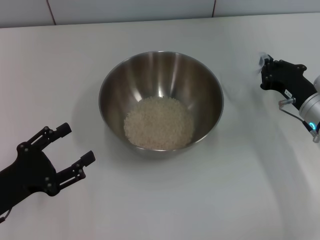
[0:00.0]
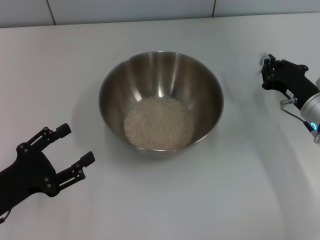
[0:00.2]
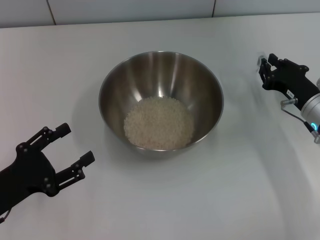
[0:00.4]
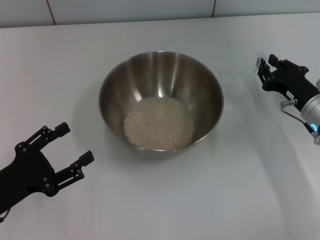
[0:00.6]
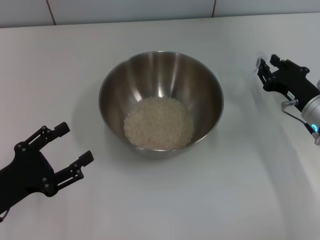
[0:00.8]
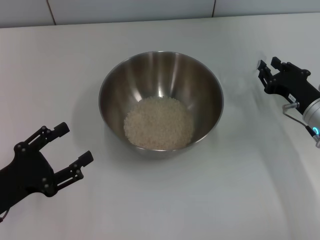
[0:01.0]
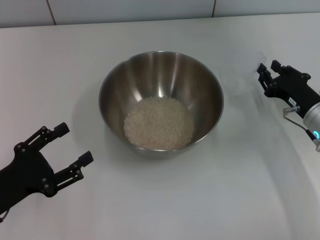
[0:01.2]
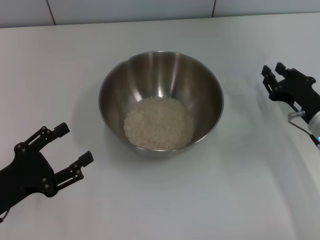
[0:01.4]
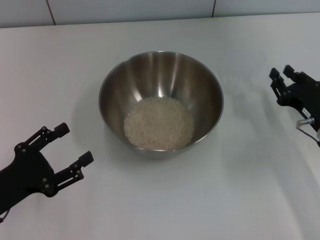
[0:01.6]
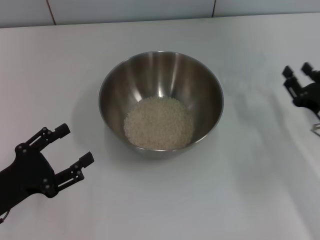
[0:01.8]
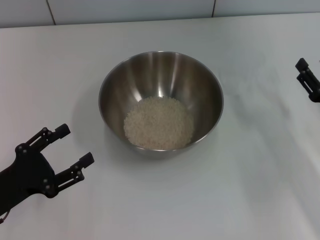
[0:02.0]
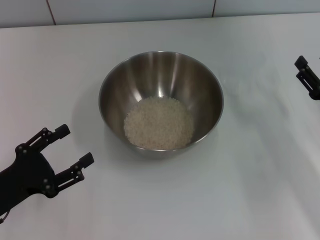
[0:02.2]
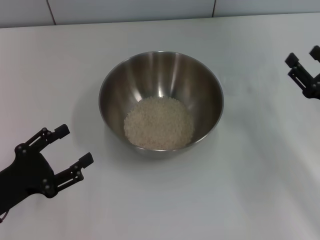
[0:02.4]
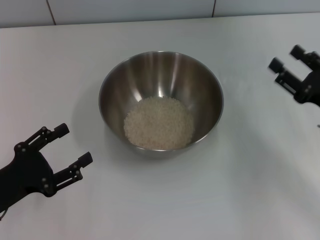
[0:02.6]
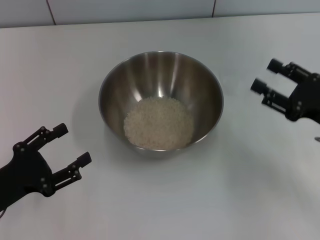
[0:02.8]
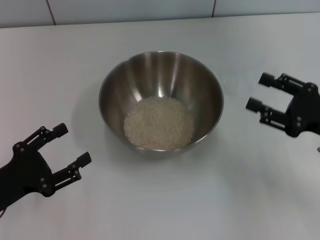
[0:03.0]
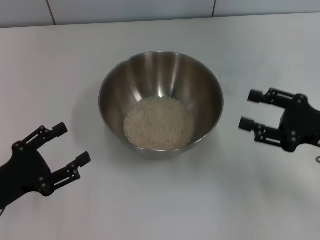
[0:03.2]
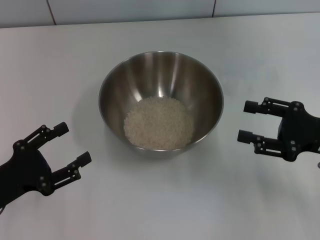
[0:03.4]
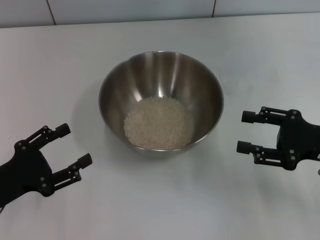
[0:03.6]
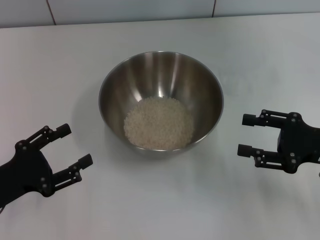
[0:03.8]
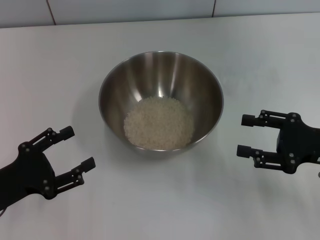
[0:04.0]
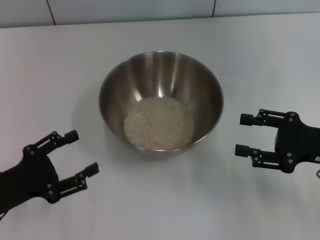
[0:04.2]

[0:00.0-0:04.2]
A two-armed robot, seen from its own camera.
Task of the whole recording: Place the bowl in the middle of the table with one hand and pour the rice from the grain cup into it with the other hand.
0:00.0 to 0:01.4: The right gripper opens.
0:01.4 to 0:02.8: The right gripper heads upward, covering approximately 5 cm, and opens up.

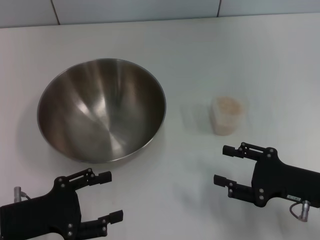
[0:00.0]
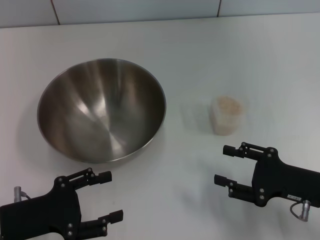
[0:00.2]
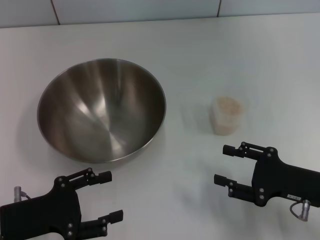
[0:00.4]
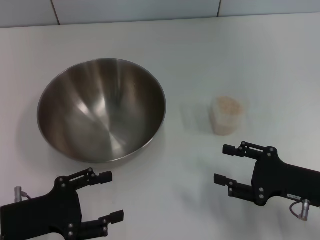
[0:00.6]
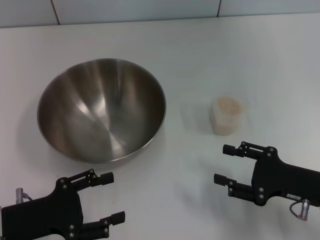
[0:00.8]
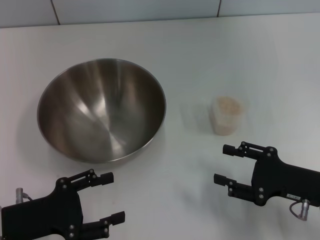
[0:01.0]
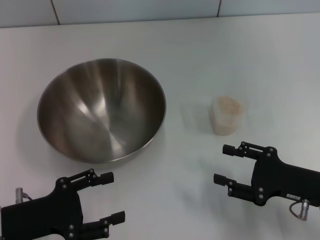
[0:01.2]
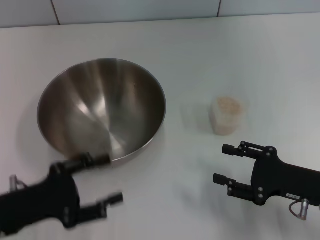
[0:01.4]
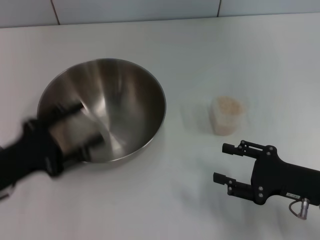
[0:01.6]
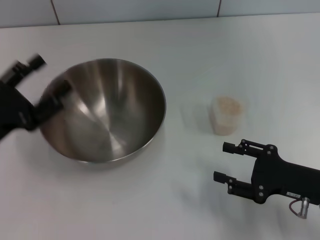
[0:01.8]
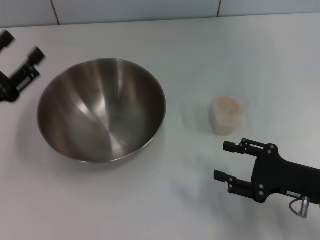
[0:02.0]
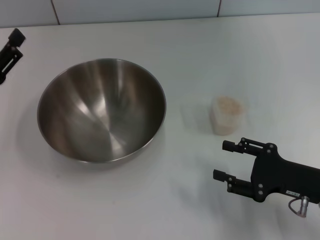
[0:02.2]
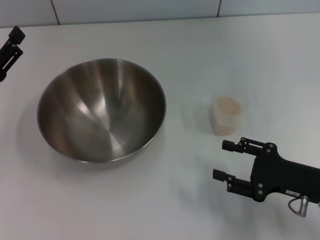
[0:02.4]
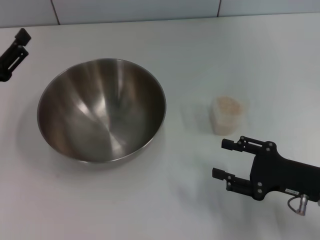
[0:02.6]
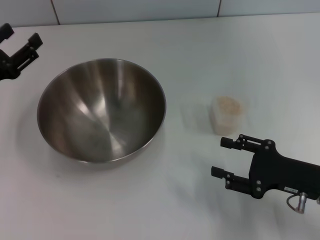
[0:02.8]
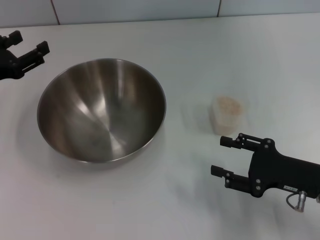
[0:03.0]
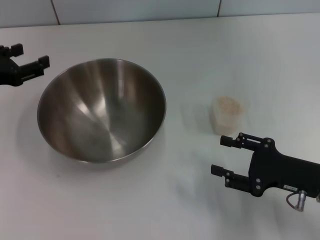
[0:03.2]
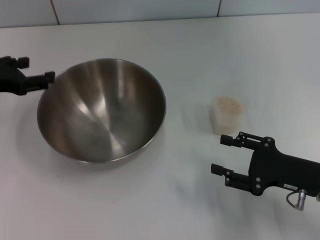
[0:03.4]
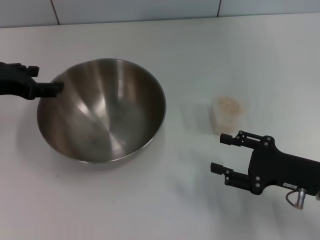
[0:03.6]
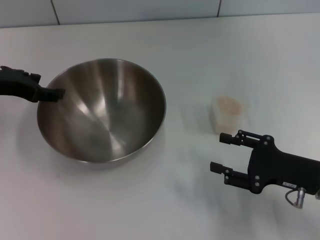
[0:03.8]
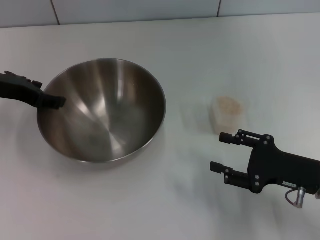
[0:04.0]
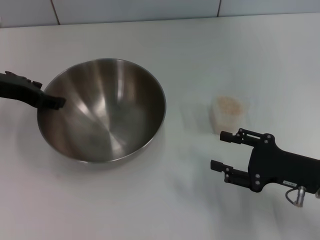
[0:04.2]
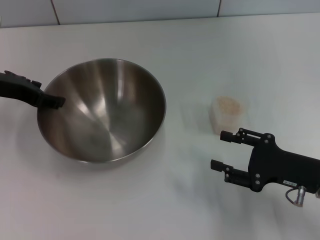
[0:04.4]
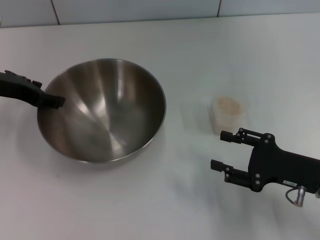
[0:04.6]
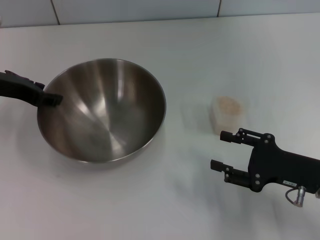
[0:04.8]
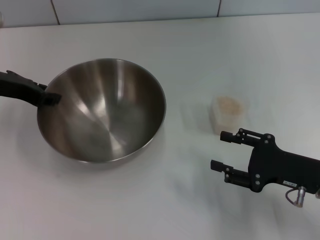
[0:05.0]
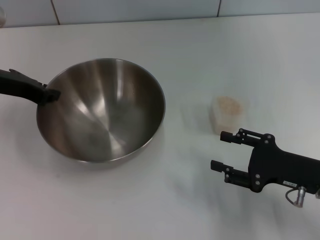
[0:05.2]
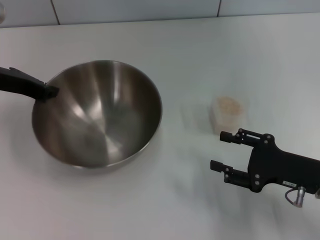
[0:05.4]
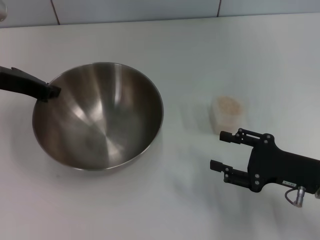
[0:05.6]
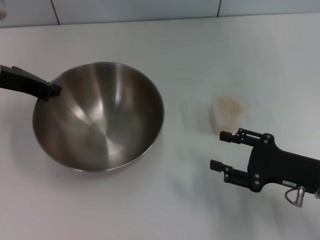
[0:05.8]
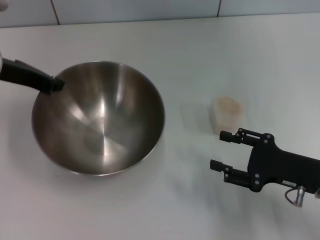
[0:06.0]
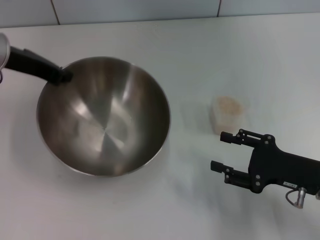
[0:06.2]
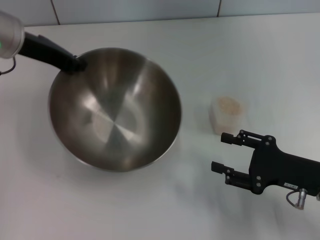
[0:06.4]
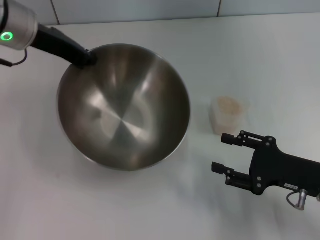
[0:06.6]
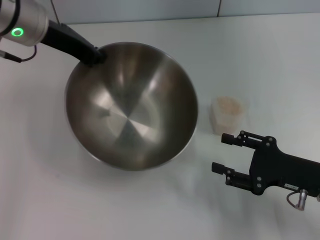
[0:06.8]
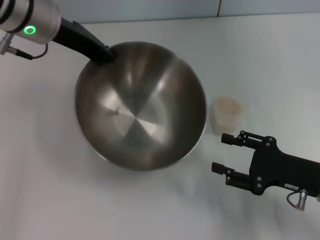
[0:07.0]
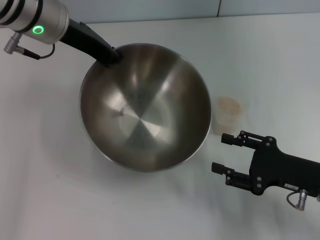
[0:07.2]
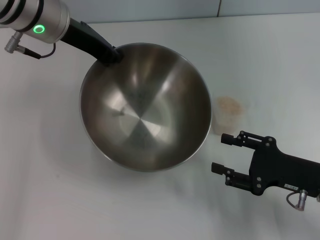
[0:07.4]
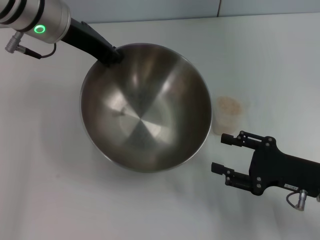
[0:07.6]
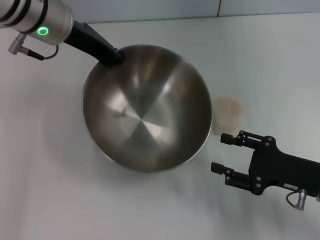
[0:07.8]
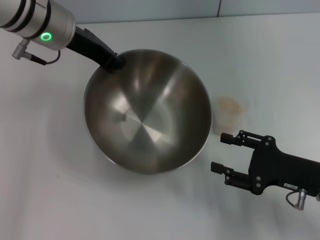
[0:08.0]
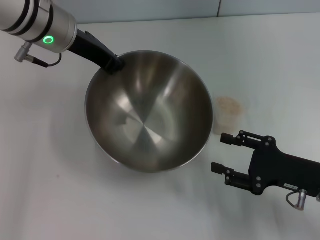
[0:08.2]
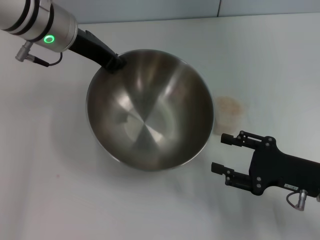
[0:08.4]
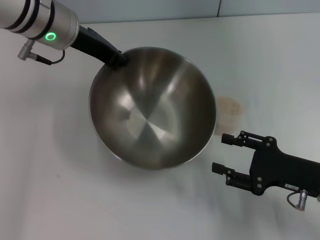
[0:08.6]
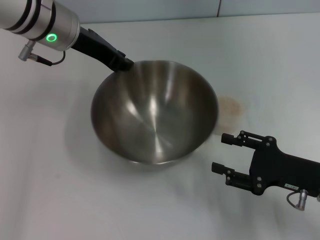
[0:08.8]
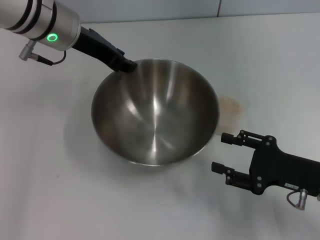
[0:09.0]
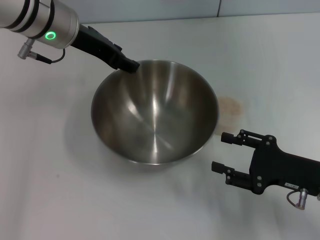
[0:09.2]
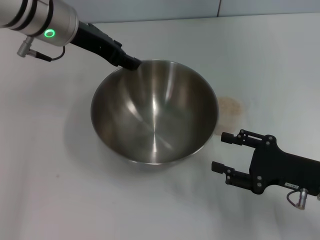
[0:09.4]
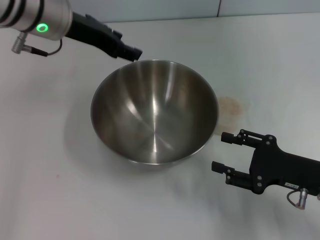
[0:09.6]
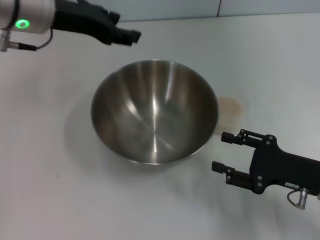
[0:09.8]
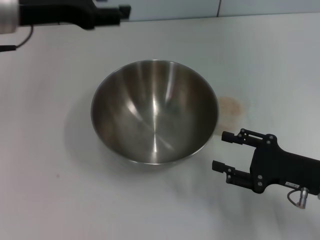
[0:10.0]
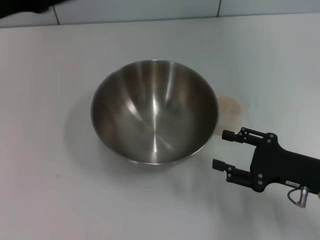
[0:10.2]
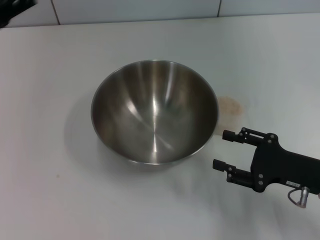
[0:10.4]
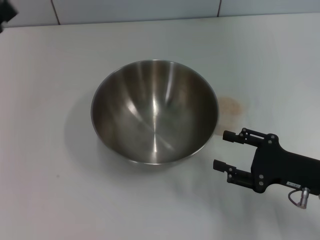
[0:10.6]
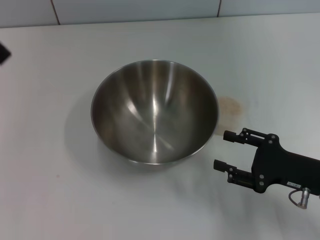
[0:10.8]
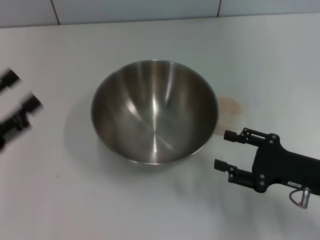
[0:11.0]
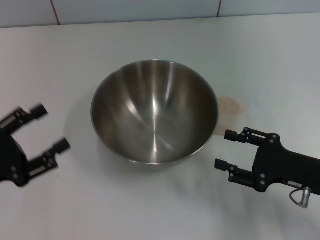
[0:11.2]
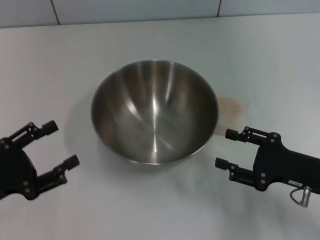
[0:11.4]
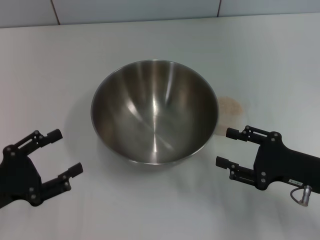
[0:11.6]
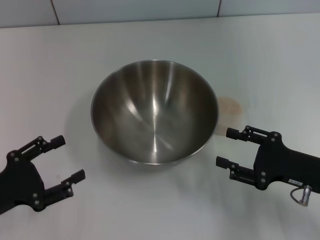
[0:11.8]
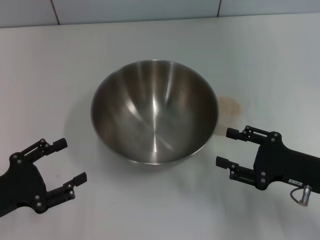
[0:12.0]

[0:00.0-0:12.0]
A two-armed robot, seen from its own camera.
Task of the whole recording: Place the bowl in the middle of the table with one hand and pour the rice from the grain cup into it with the other hand.
Step, 0:00.0 to 0:06.6: Pick up the bowl with the left gripper.
Step, 0:06.8 to 0:09.8: Place the bowl in the center of view with the left gripper.
0:01.6 to 0:03.0: The left gripper heads forward, covering about 10 cm.
0:03.0 to 0:04.4: The left gripper changes place by about 10 cm.
0:04.4 to 0:06.0: The left gripper closes up.
0:06.0 to 0:07.6: The left gripper travels to the right by approximately 10 cm.
0:07.6 to 0:09.0: There are only small adjustments of the grippers.
0:09.0 to 0:10.4: The left gripper heads to the left and backward, covering about 20 cm, and opens.
0:10.4 to 0:12.0: The left gripper travels downward and backward by roughly 20 cm.

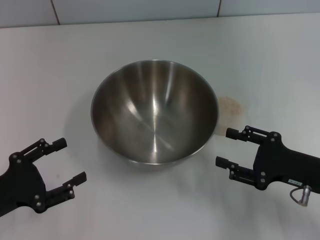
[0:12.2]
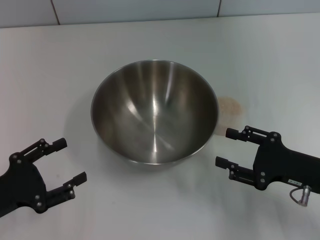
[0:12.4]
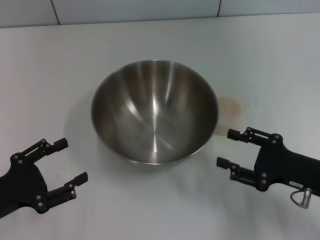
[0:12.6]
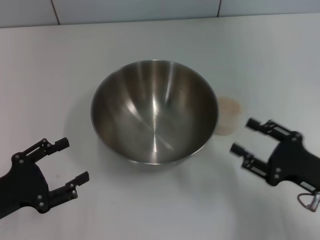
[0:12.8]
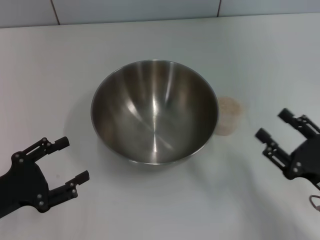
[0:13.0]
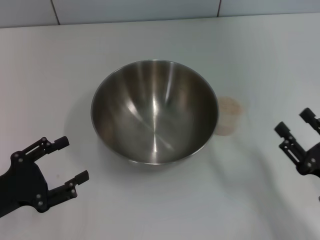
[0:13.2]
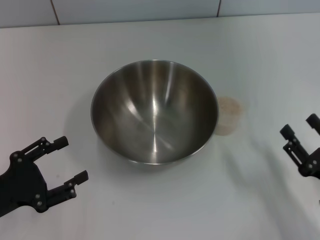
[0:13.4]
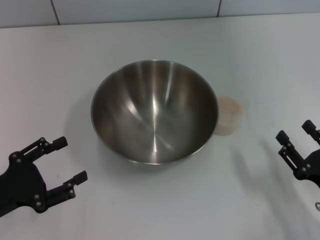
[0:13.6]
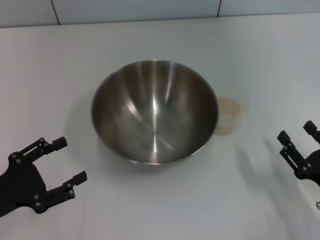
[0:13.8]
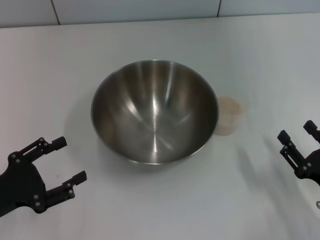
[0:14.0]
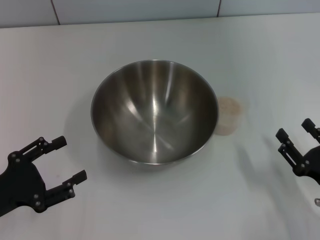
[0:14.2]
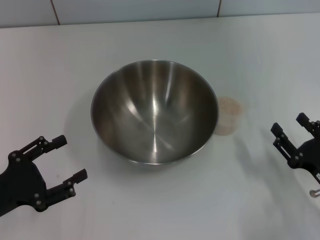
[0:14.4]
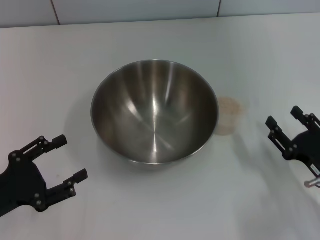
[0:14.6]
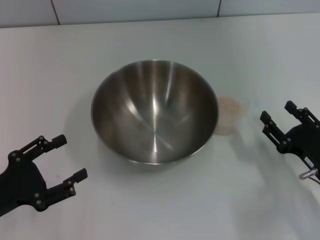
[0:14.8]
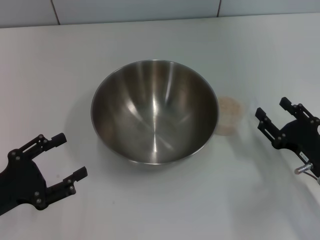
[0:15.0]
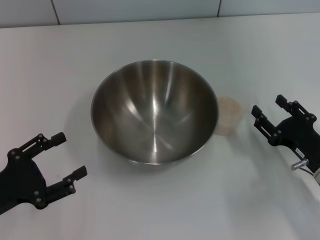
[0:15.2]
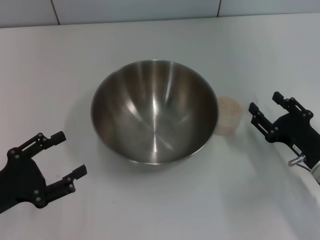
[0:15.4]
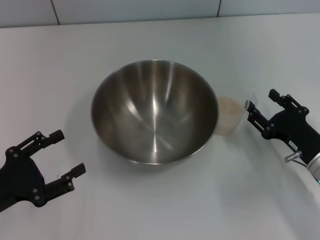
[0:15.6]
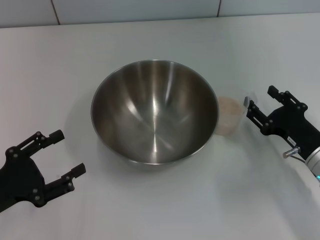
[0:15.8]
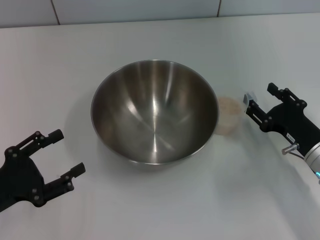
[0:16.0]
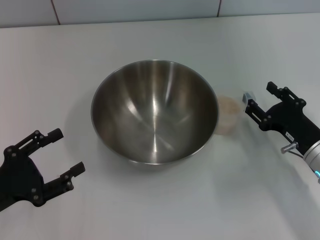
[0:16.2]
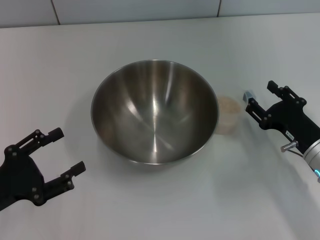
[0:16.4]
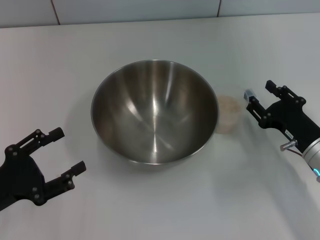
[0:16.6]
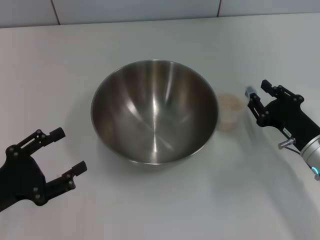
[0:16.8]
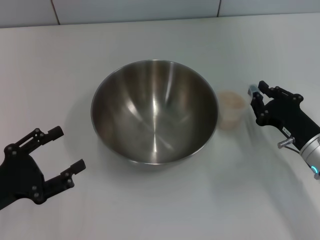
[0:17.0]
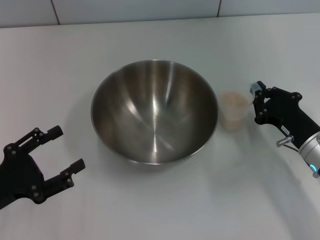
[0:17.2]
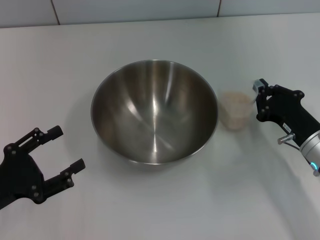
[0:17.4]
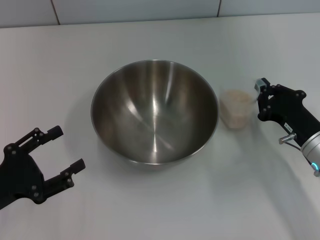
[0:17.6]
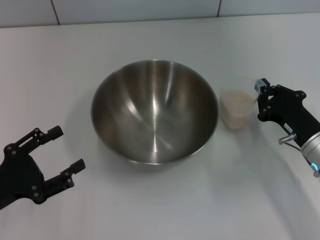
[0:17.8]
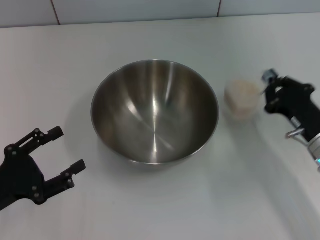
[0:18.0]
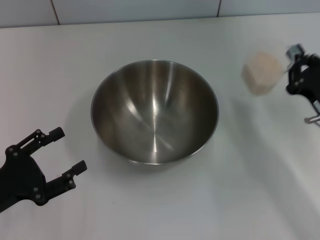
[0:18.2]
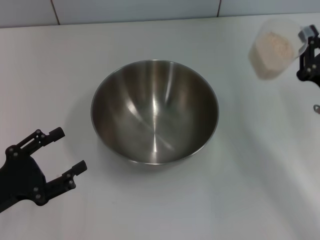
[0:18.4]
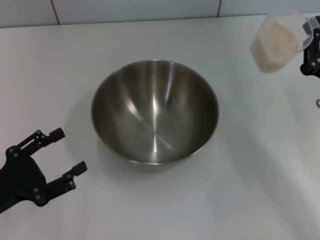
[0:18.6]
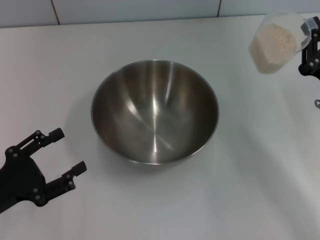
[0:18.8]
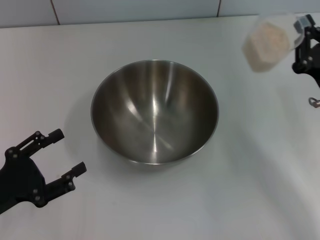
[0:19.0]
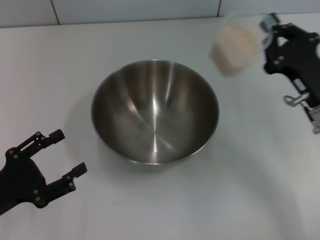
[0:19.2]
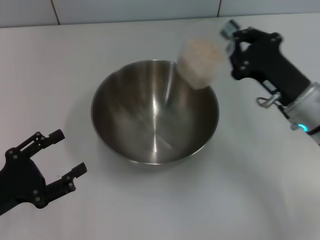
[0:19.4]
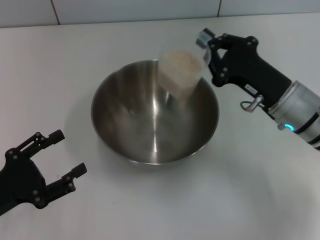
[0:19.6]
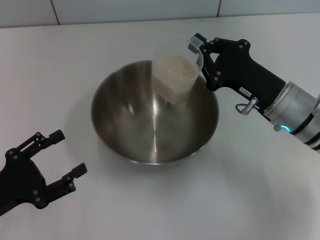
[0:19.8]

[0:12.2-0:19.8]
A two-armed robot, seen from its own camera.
Task of the whole recording: Place the bowl in the middle of the table with one hand and pour the rice from the grain cup into it with the other hand.
Step, 0:12.2 to 0:18.6: Pick up the cup with rice in it with the right gripper.
0:12.2 to 0:13.8: The right gripper travels backward by roughly 5 cm.
0:13.8 to 0:15.2: The right gripper shifts some 5 cm forward.
0:15.2 to 0:16.8: There are only small adjustments of the grippers.
0:16.8 to 0:18.2: The right gripper closes.
0:18.2 to 0:19.8: The right gripper moves to the left, approximately 10 cm.
